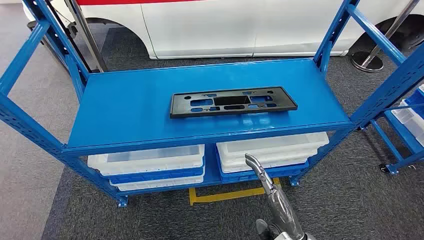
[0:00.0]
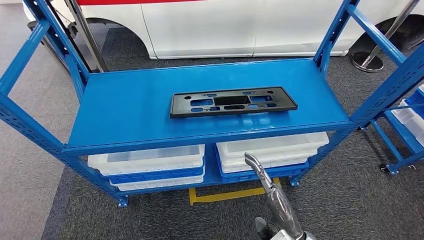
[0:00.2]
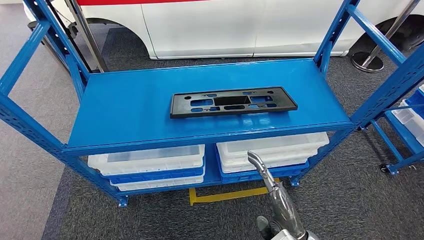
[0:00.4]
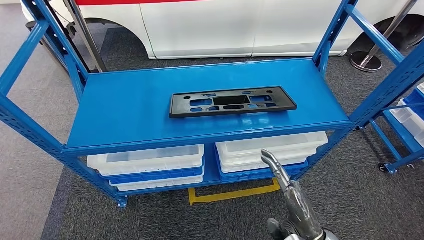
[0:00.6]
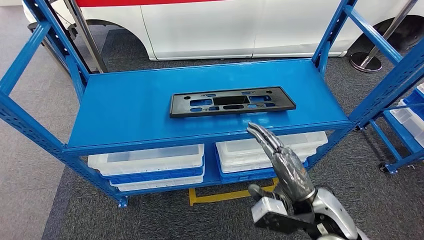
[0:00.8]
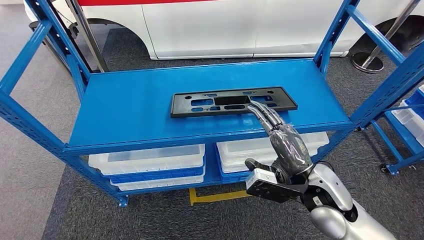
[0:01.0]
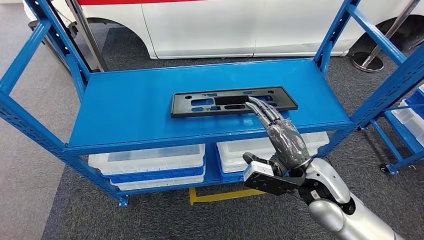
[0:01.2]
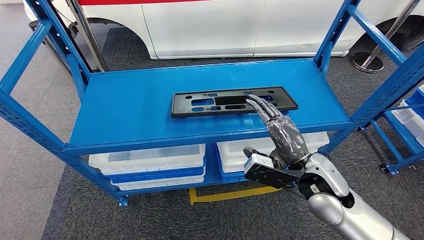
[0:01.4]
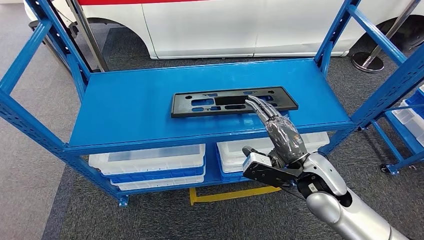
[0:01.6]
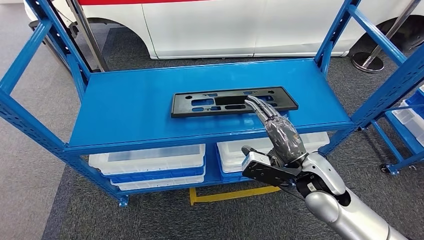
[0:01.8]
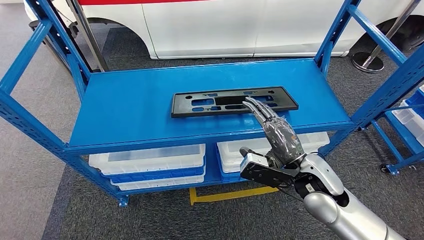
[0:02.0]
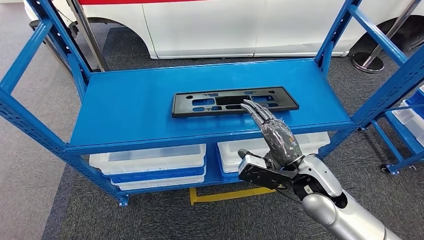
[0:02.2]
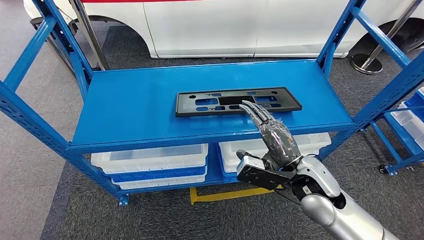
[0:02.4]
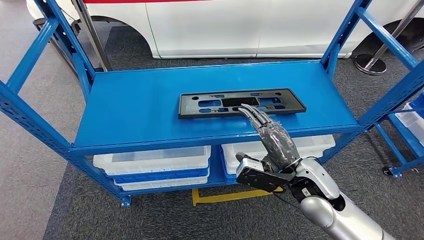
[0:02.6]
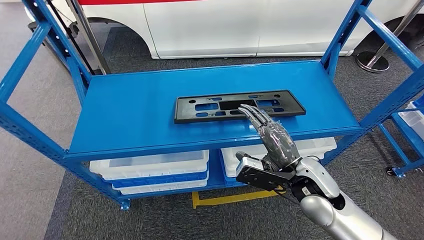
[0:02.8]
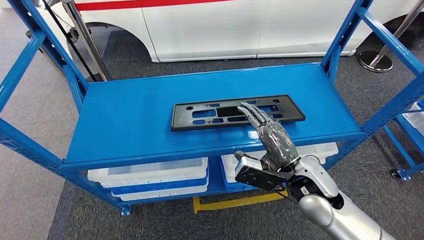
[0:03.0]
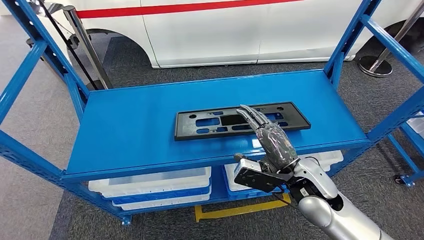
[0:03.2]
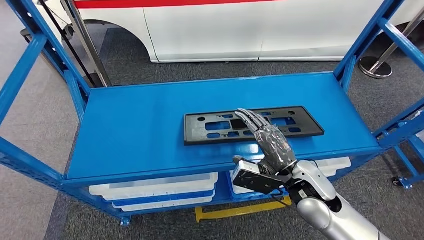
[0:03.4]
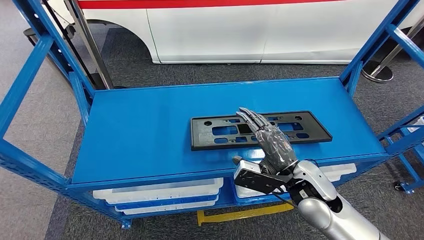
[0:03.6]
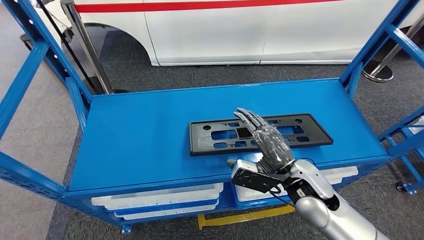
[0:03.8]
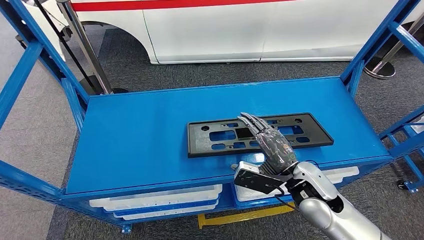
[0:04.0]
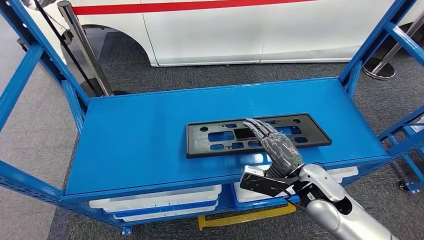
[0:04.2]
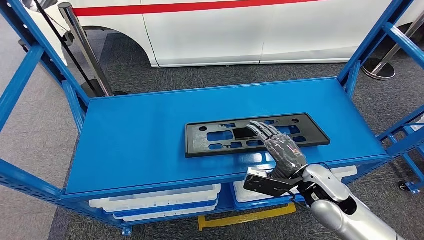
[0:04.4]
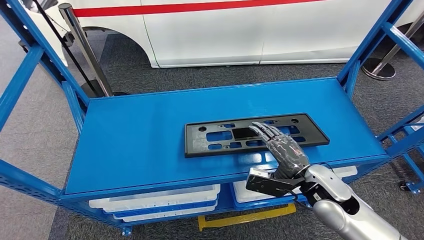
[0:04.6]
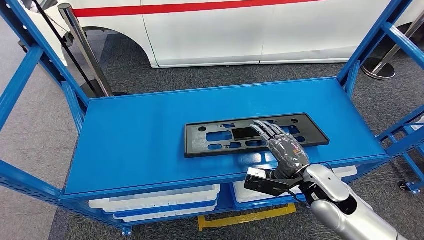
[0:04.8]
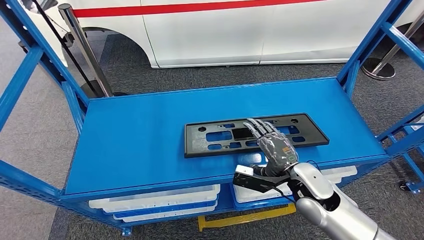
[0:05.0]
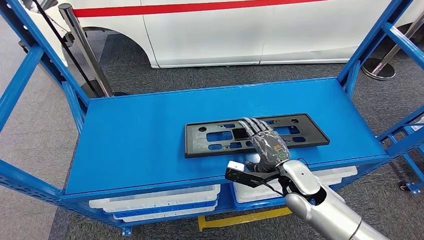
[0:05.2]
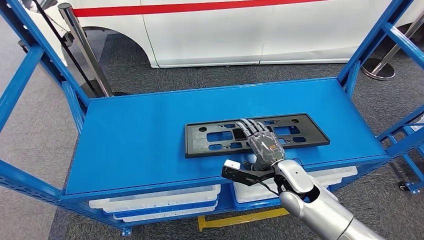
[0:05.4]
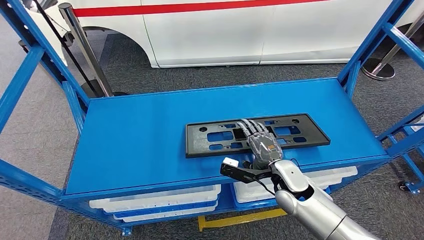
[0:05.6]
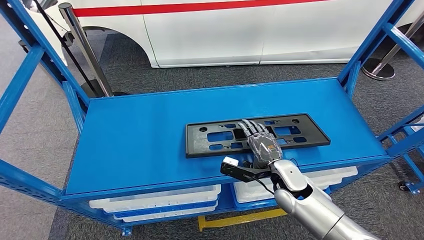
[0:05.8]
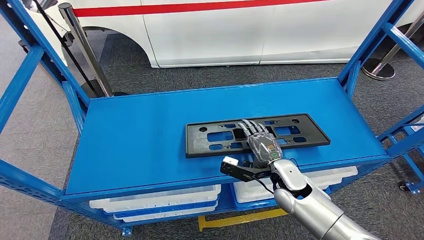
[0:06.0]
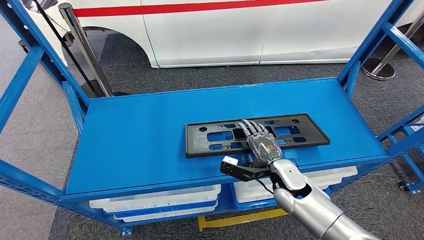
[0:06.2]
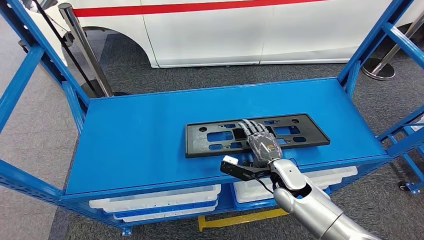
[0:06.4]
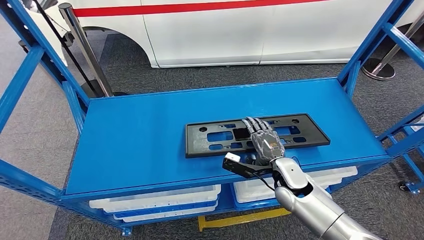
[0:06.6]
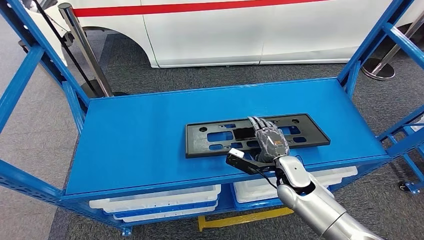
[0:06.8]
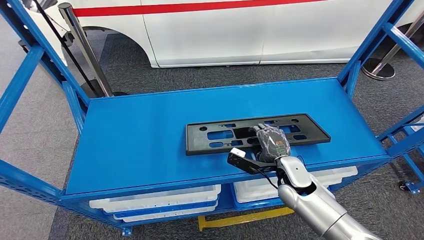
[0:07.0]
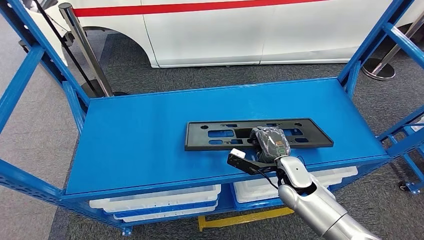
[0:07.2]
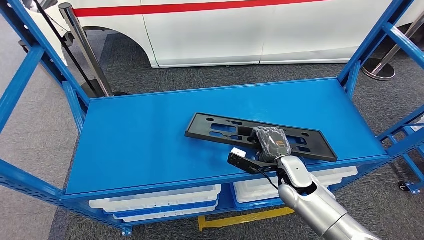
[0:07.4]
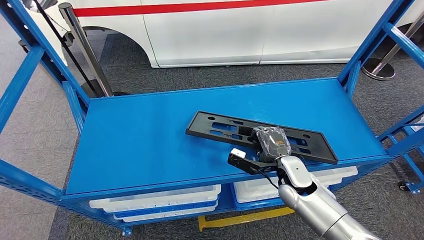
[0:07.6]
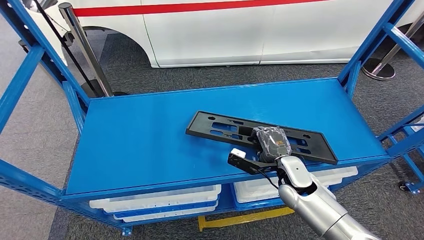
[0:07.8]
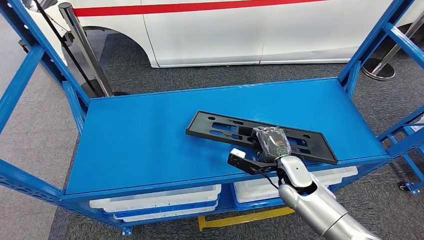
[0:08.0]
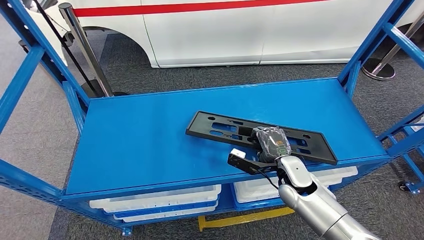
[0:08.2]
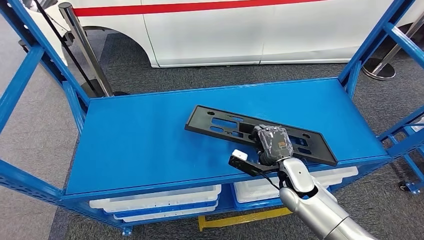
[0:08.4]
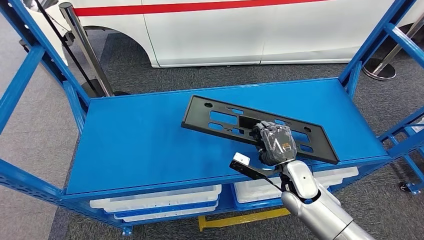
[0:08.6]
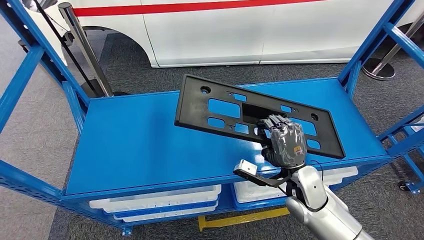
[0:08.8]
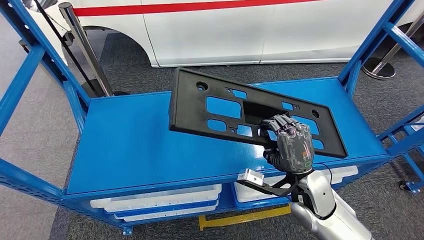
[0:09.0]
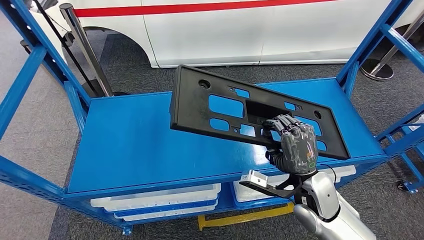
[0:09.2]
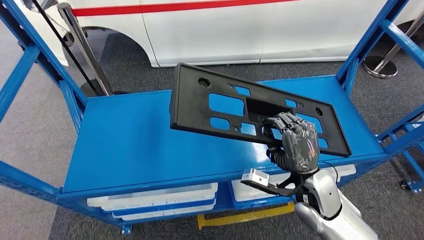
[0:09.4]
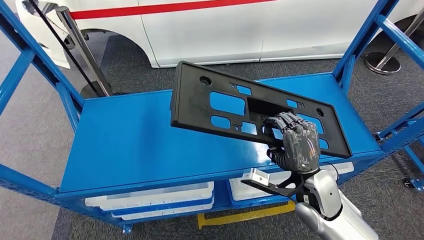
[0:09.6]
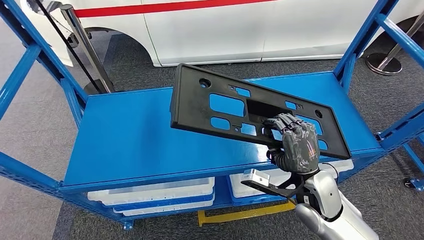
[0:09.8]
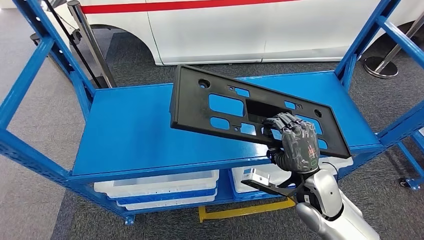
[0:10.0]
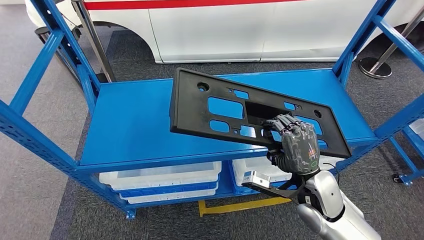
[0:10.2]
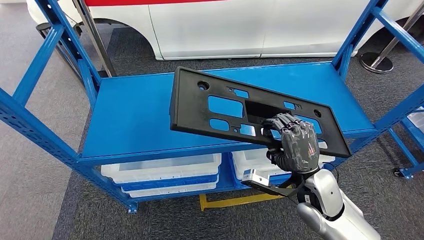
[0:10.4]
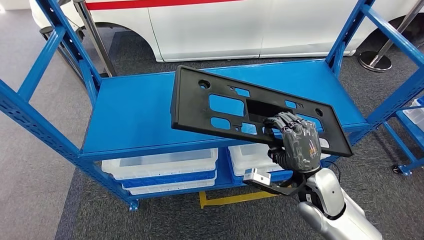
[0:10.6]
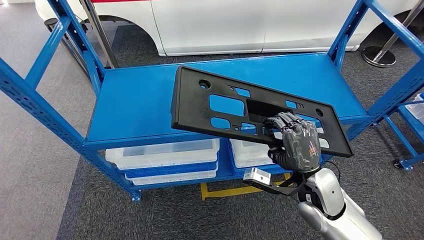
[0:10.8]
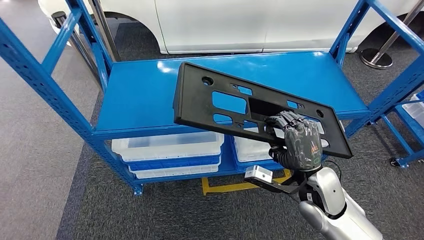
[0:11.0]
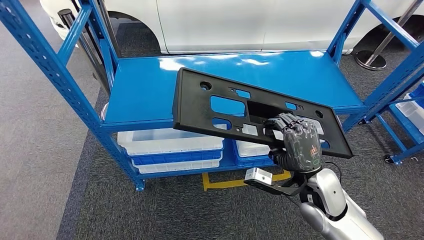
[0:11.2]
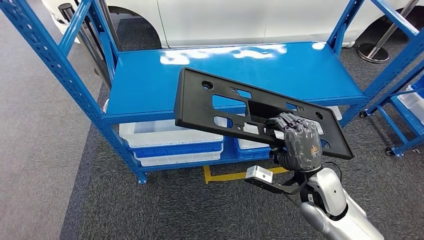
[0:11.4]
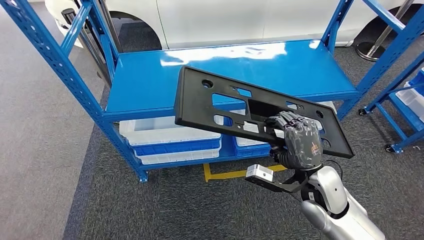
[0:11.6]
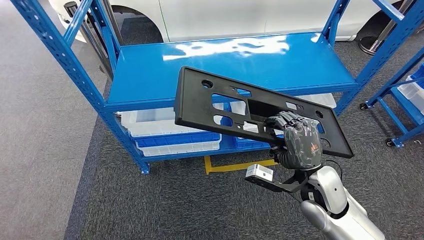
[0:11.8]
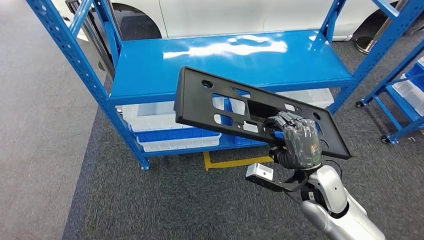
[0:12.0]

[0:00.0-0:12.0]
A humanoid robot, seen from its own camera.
Step, 0:00.0 to 0:08.6: Pick up the large material from the shelf.
0:04.4 to 0:06.0: The right hand goes roughly 5 cm downward.
0:06.0 to 0:07.6: The hands stay close to where they were, moving slightly.
0:07.6 to 0:09.0: The right hand goes about 5 cm upward.

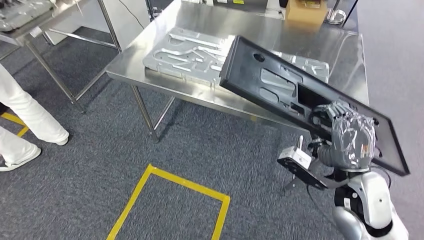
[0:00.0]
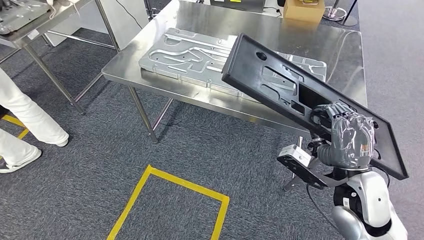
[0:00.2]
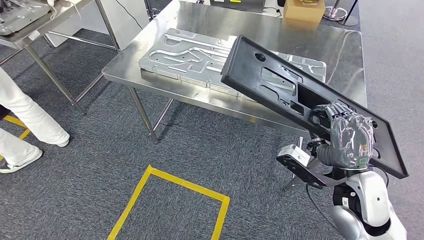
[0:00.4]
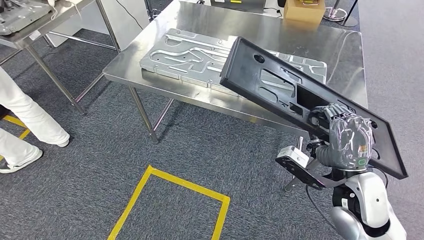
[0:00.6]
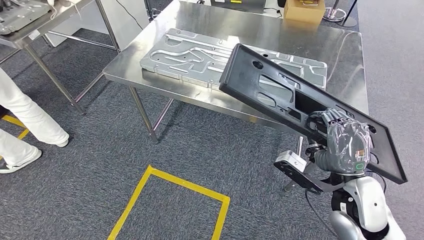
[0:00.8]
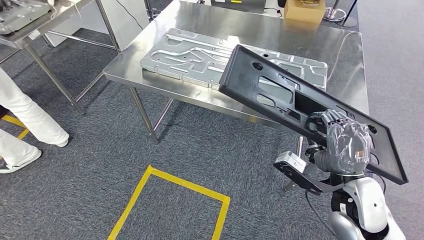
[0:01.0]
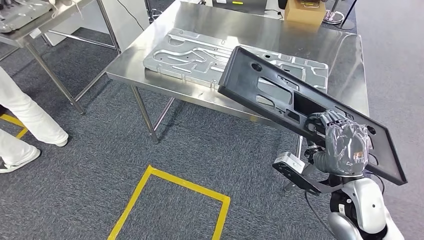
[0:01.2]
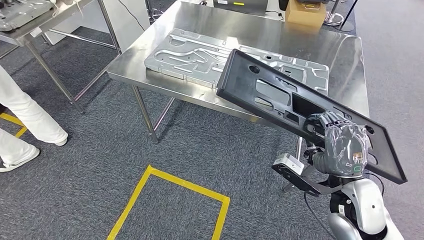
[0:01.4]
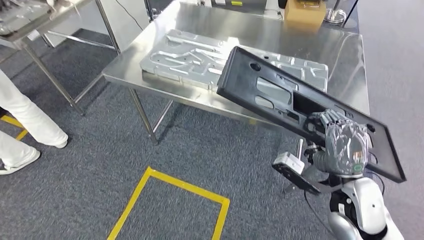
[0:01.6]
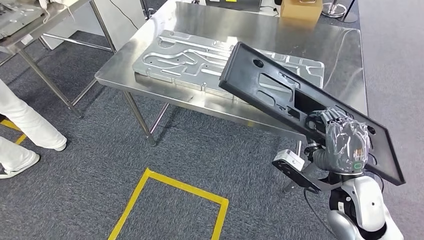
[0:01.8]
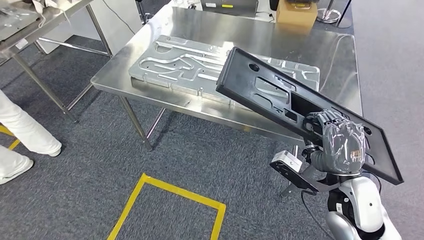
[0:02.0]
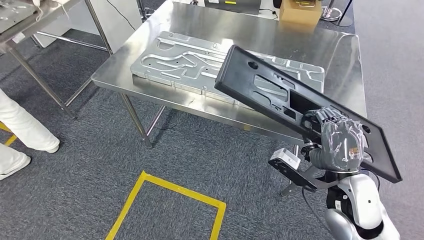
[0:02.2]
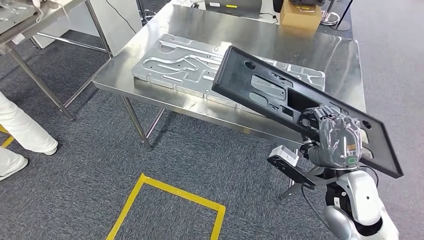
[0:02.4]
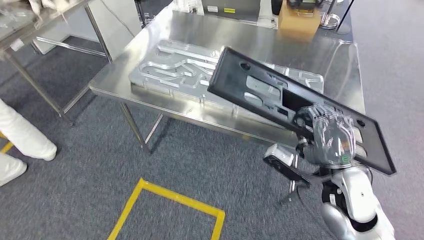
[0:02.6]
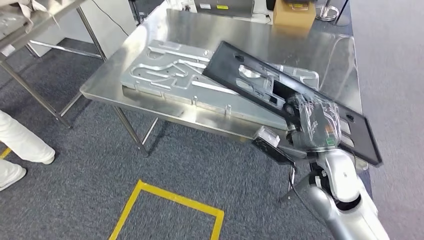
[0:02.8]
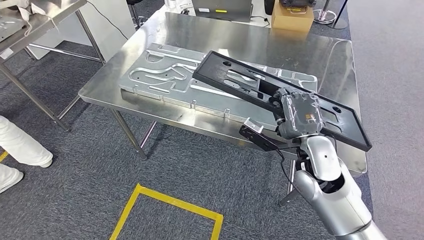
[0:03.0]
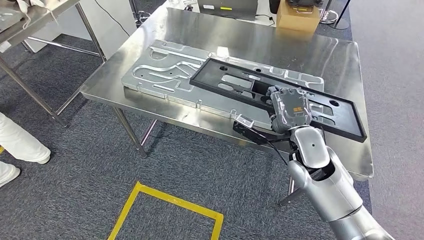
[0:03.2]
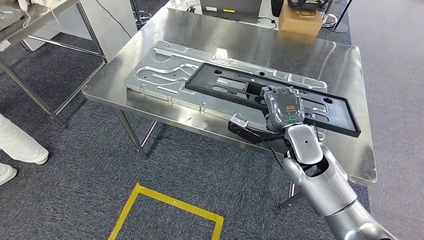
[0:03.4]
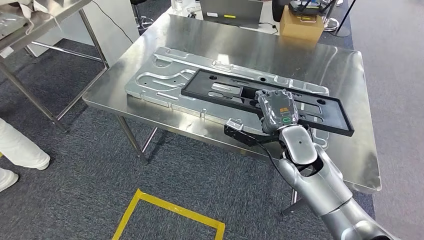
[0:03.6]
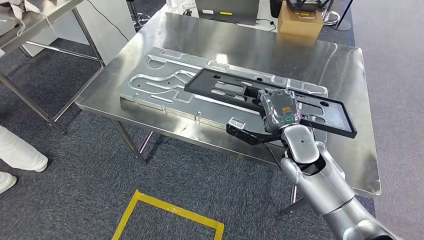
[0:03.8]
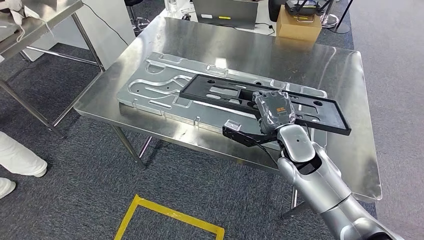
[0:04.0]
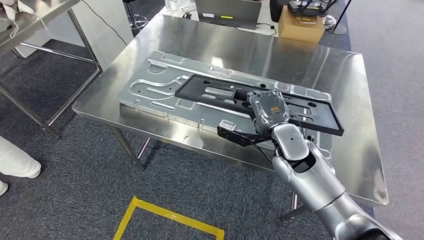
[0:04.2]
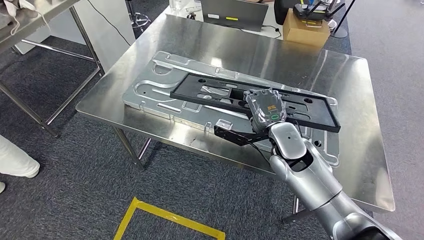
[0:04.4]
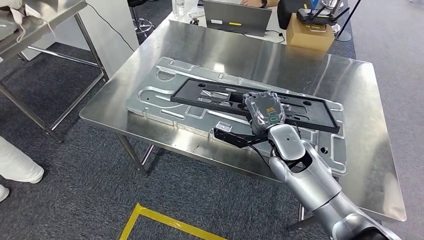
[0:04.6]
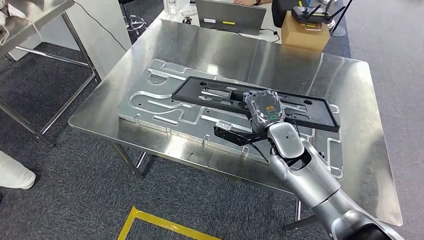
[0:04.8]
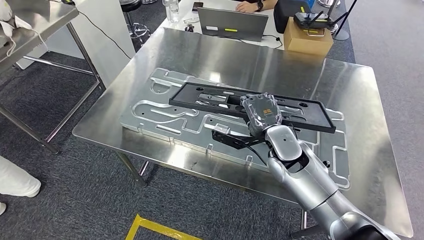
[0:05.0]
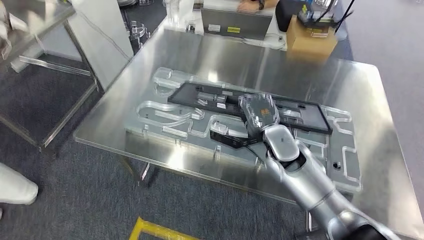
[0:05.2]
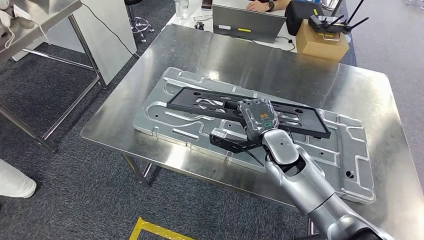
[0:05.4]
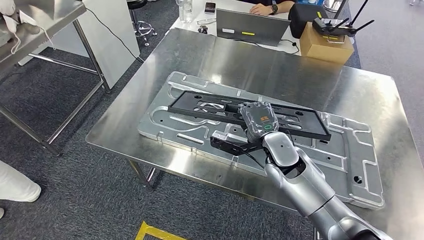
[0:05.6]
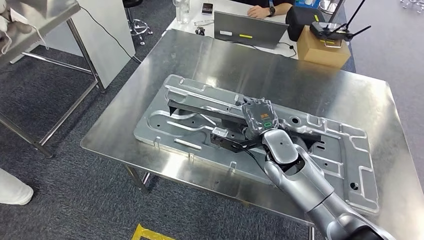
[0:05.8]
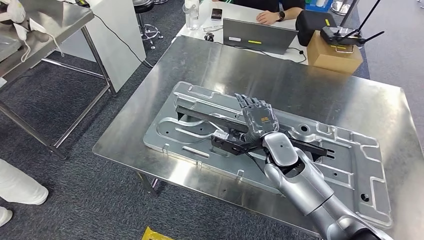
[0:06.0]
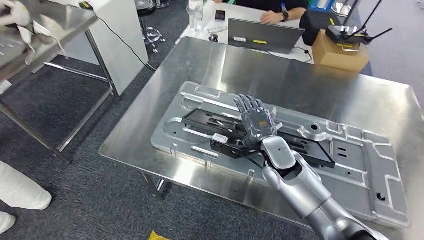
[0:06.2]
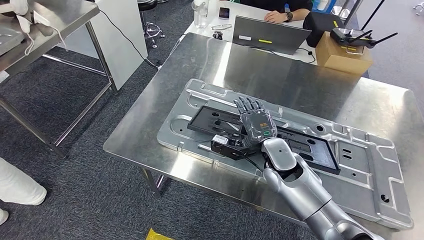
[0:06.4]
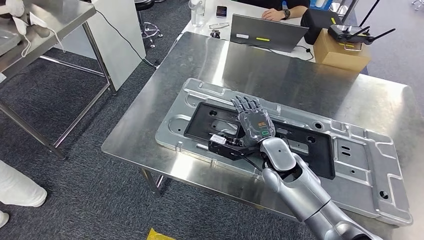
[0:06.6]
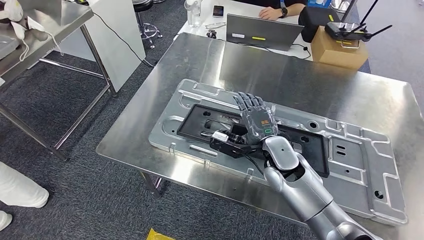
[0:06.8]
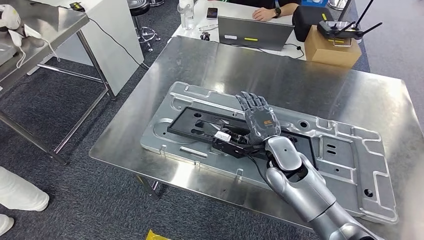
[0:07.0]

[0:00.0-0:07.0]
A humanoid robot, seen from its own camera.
Step, 0:01.6 to 0:06.6: Insert the large material into the corresponding slot on the workbench.
0:00.0 to 0:01.4: There are only small adjustments of the hands.
